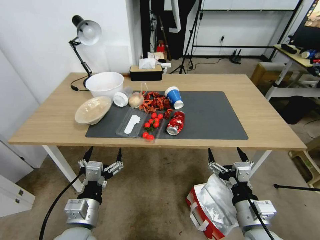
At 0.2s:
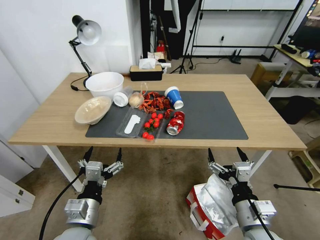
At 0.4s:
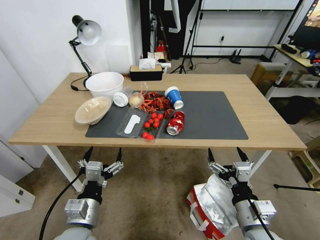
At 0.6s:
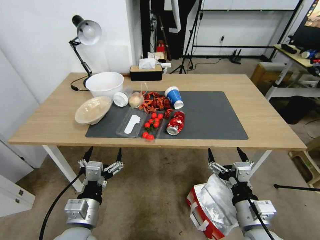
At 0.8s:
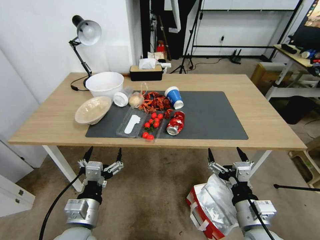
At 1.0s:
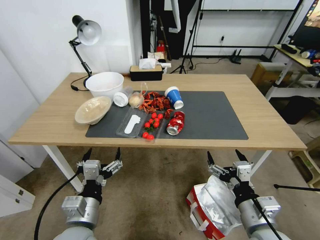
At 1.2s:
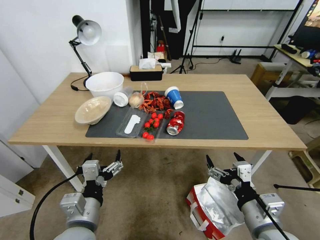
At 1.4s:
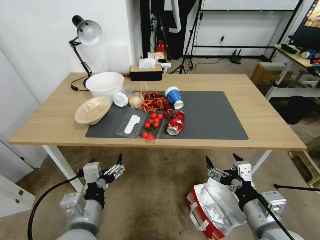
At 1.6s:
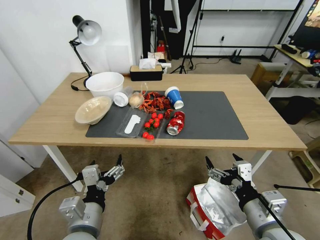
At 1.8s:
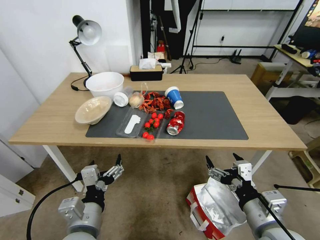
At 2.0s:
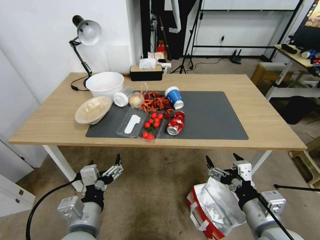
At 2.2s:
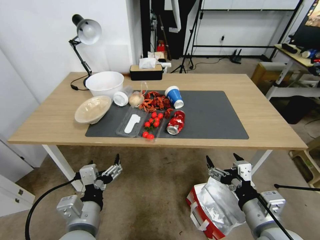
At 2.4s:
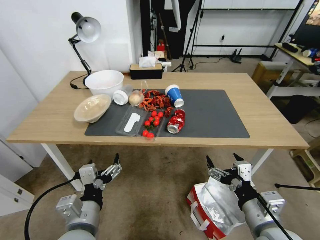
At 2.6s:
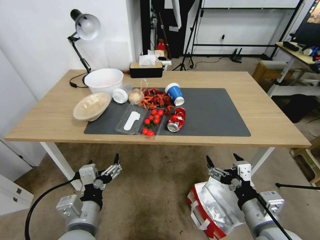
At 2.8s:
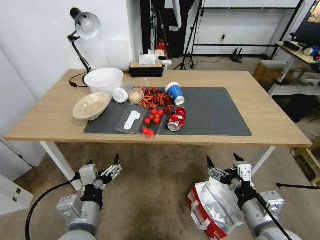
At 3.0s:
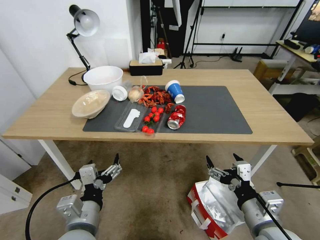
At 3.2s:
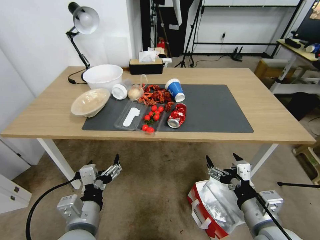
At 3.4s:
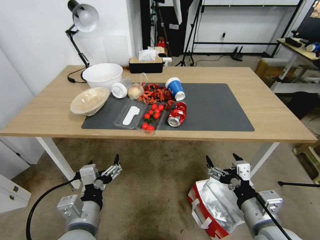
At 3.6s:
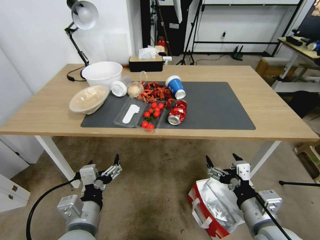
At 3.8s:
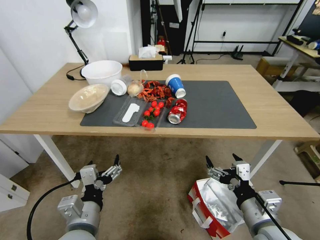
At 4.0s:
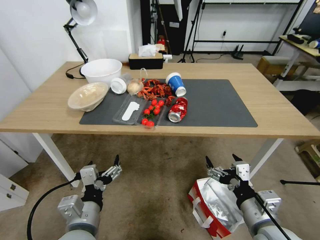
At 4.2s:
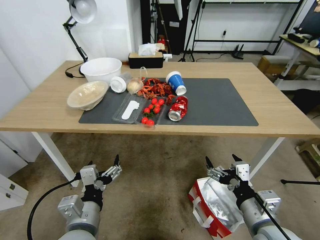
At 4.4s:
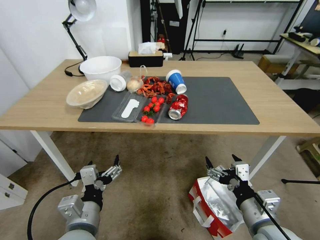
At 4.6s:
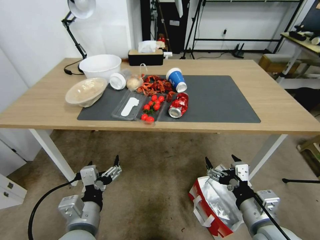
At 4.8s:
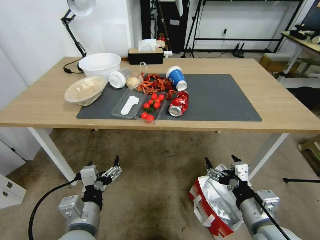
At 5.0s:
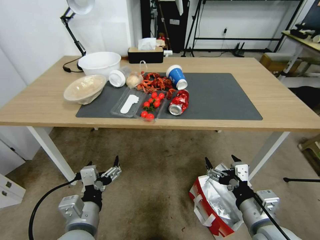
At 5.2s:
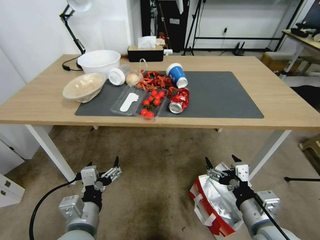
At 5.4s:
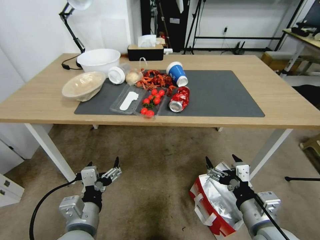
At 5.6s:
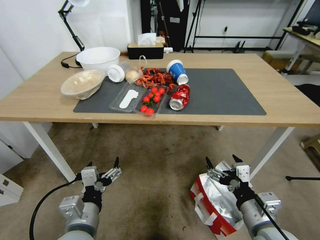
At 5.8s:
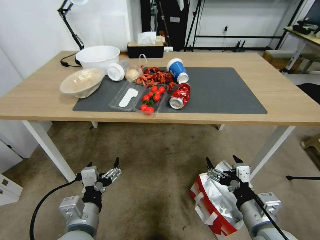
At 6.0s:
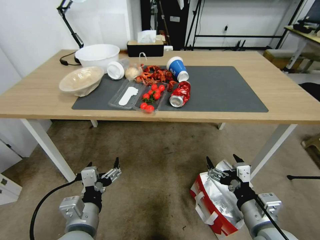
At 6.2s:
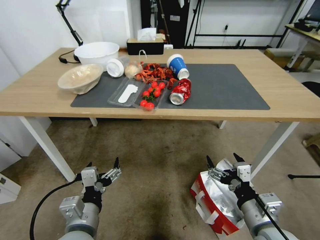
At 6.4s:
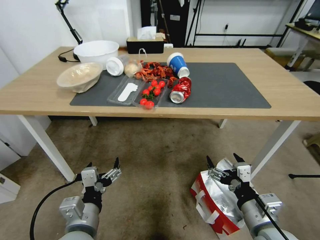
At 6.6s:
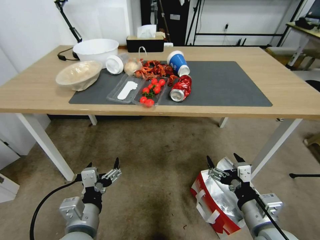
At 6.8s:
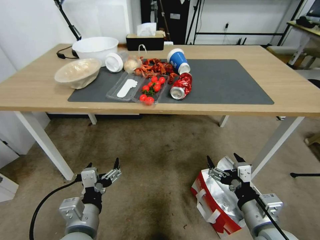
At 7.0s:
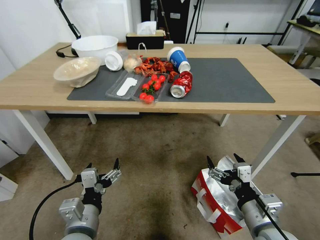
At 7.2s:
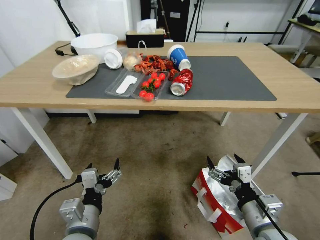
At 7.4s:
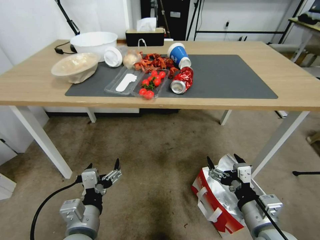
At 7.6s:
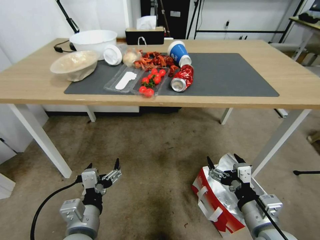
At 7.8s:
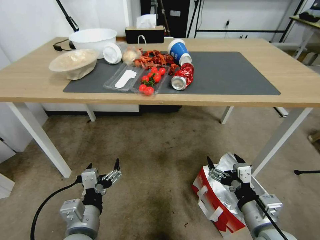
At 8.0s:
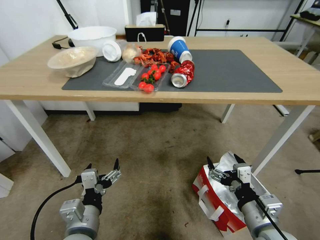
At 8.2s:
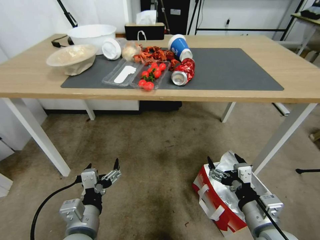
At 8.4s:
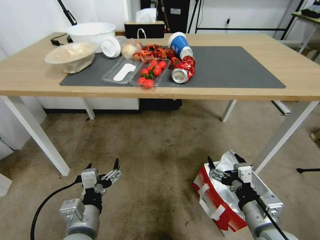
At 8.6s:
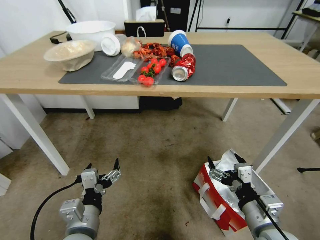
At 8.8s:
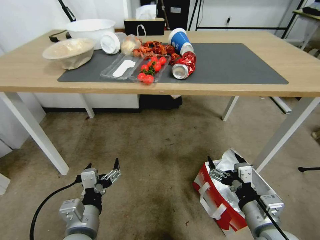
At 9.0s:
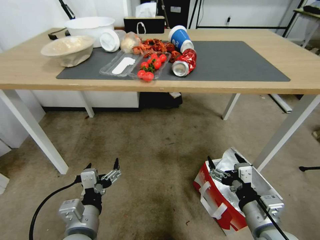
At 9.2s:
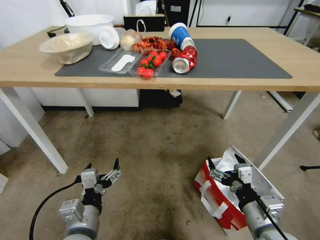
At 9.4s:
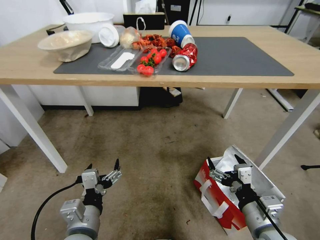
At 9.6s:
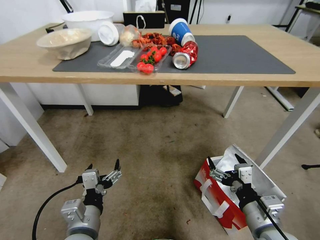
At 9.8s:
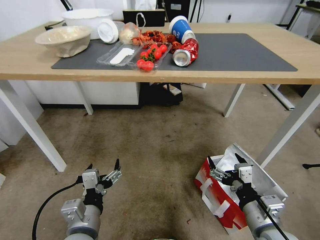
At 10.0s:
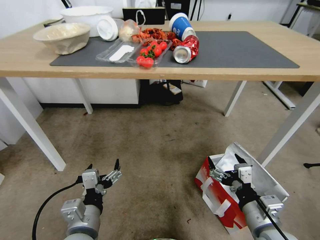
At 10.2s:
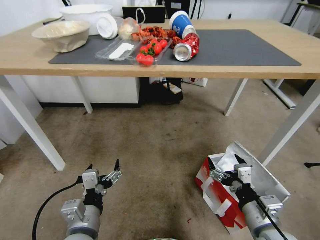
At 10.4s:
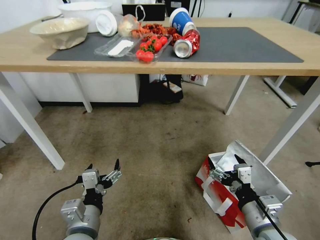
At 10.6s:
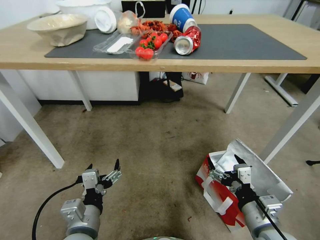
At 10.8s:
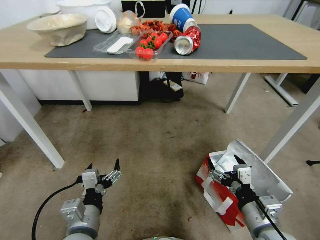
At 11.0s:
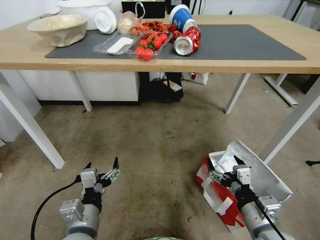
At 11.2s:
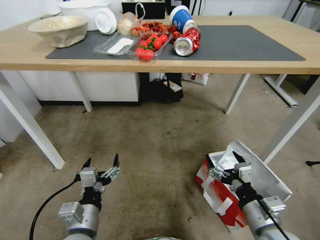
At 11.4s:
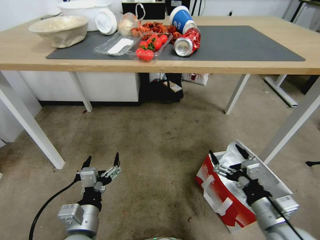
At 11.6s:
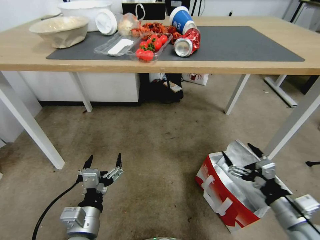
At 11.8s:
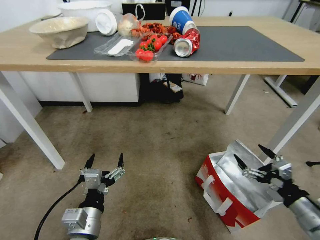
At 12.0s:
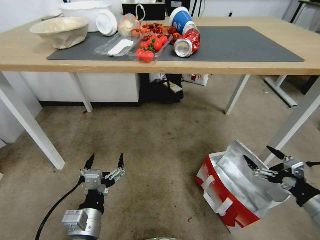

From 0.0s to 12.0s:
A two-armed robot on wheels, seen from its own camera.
Task of the whole recording: Pick up the food delivery bag from the floor and place it on the table.
From 10.4s to 12.0s: The right gripper is displaced to the right by approximately 20 cm.

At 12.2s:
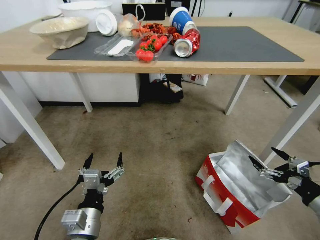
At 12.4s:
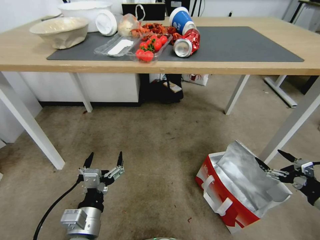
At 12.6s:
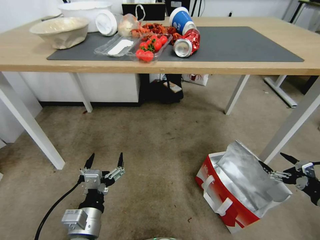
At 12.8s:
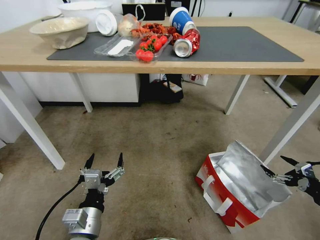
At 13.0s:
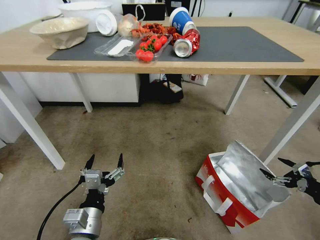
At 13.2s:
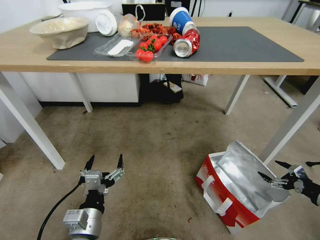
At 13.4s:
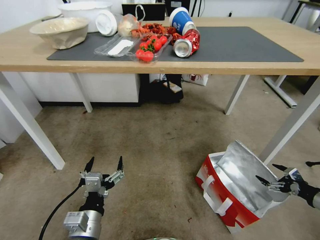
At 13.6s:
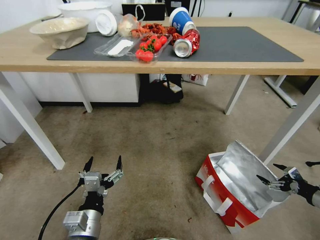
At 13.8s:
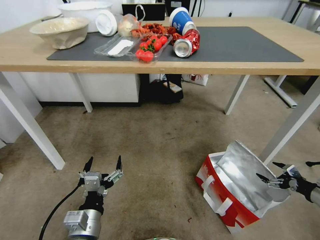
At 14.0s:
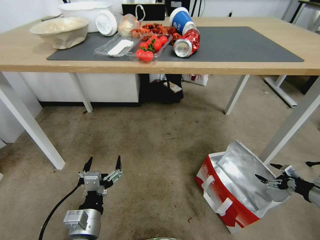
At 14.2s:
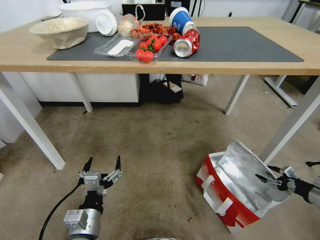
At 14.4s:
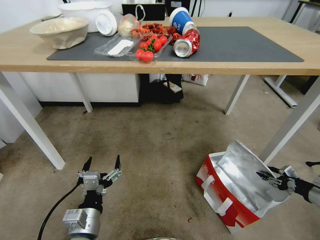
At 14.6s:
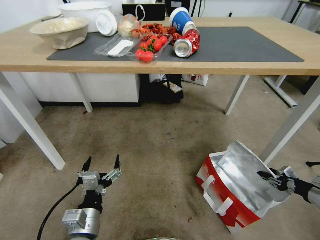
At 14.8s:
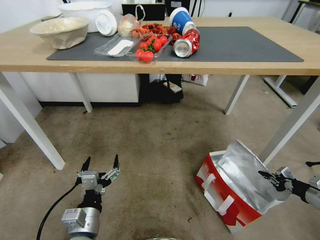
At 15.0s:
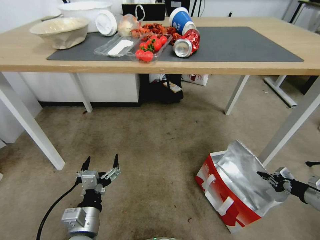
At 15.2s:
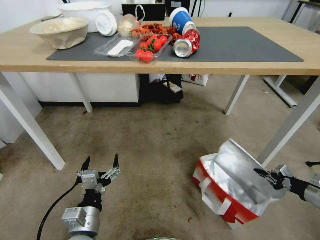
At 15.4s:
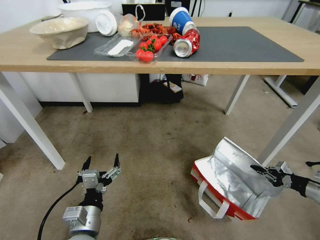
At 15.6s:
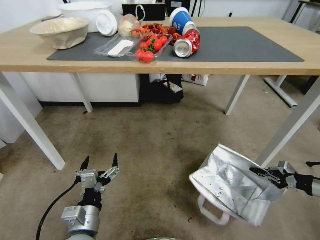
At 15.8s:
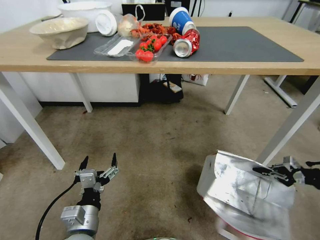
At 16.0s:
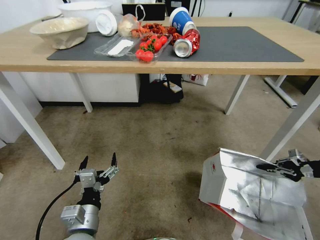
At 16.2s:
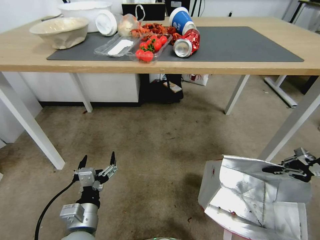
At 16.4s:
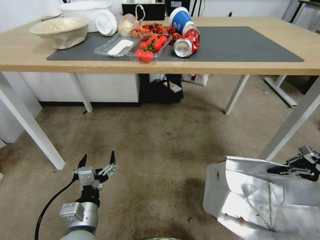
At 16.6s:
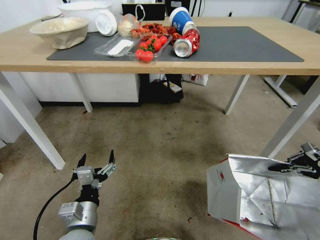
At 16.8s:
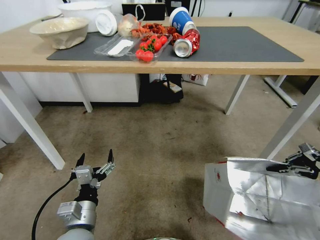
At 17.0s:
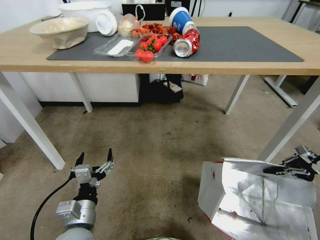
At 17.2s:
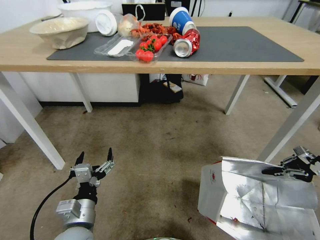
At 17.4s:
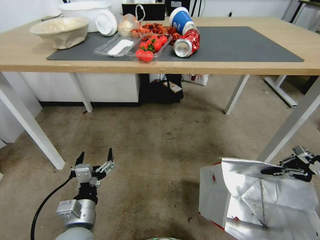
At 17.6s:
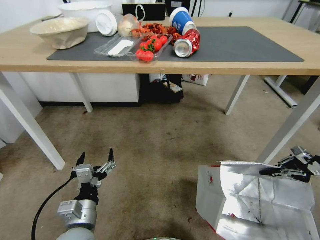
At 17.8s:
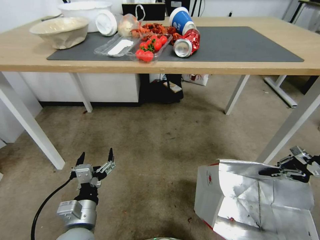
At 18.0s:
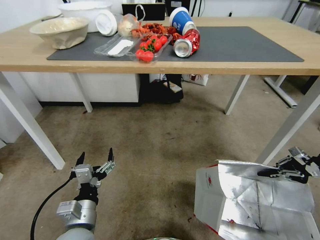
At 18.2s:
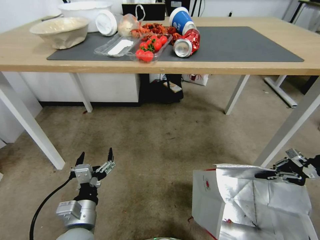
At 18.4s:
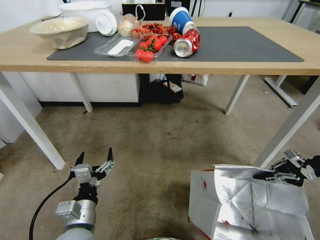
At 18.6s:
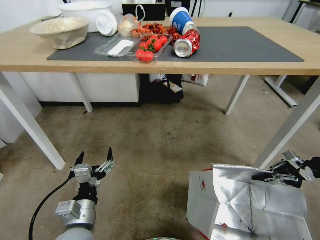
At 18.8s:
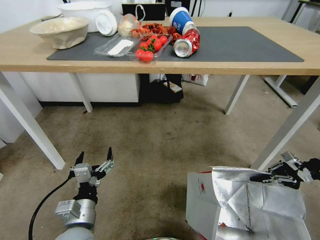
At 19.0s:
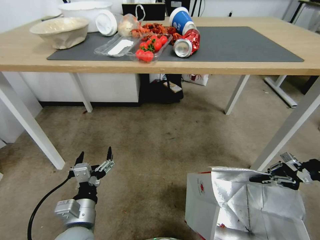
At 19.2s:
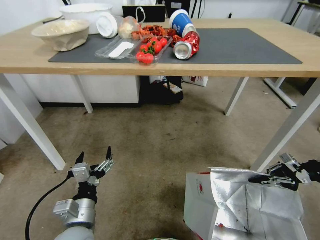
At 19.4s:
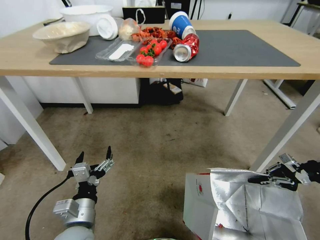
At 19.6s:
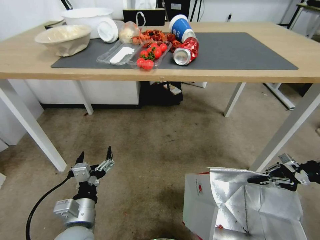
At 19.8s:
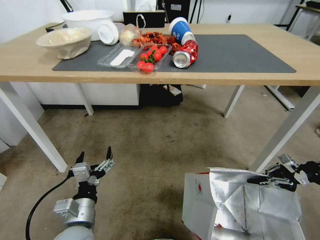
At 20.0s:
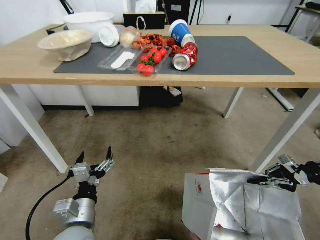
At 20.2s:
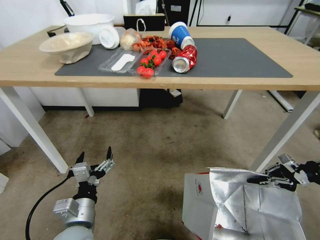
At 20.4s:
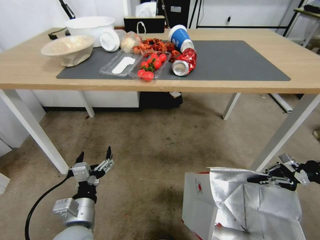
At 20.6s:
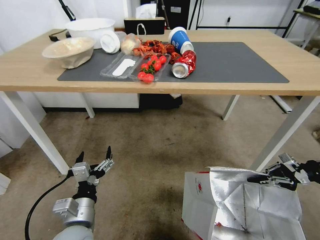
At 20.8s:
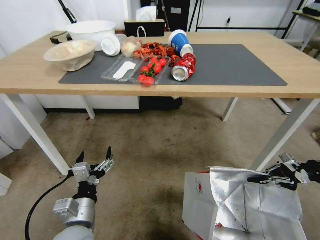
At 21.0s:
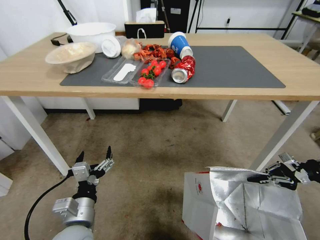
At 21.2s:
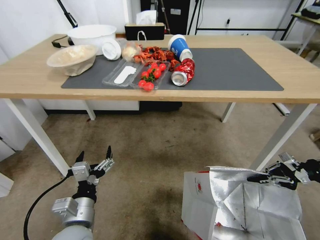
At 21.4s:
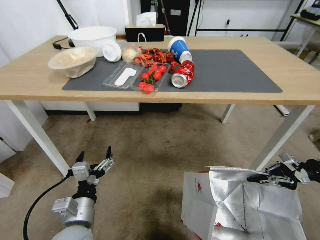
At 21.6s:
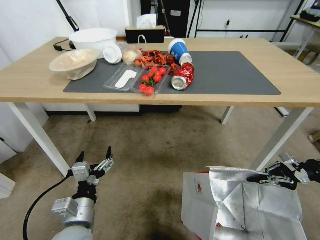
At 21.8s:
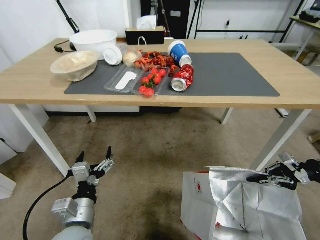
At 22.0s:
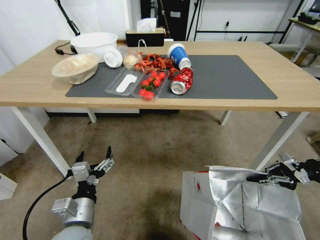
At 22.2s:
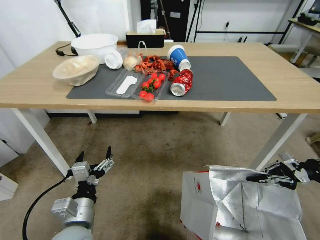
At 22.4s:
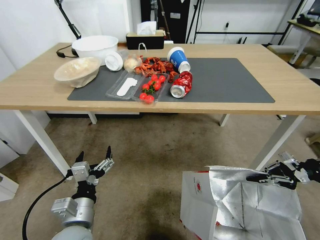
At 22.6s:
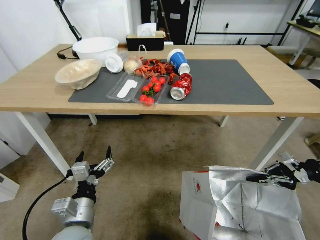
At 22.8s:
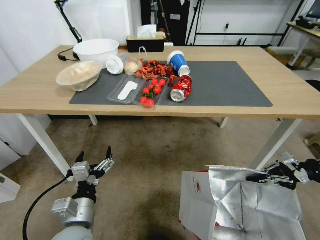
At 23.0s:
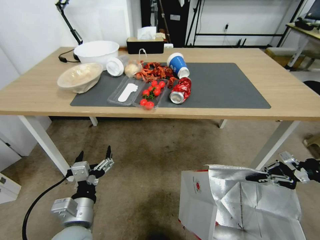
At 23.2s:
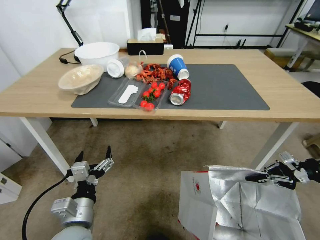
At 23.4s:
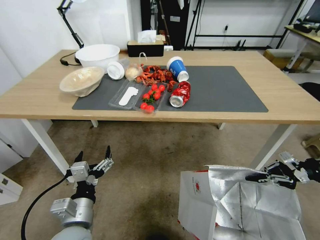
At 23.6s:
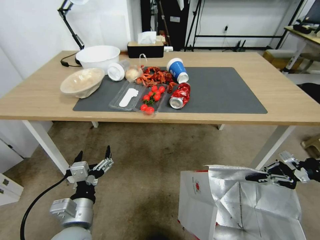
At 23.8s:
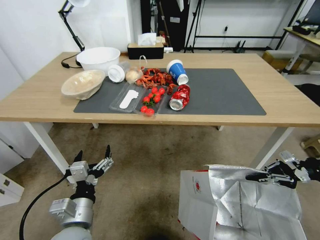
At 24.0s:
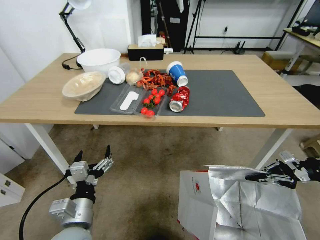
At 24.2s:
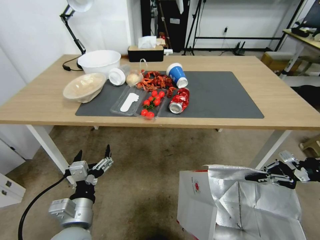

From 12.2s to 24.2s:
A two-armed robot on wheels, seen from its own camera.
Task of the whole recording: Pick up the food delivery bag from the floor and place it on the table.
From 12.2s to 13.8s: The right gripper shifts some 15 cm to the right, downward and forward.
From 13.8s to 15.2s: The right gripper closes.
From 15.2s to 16.6s: The right gripper travels upward and forward by some 20 cm.
From 16.6s to 18.2s: There are only small adjustments of the grippers.
